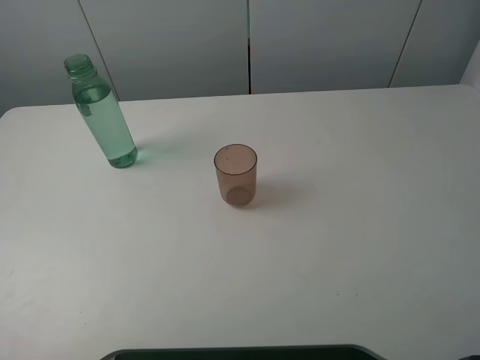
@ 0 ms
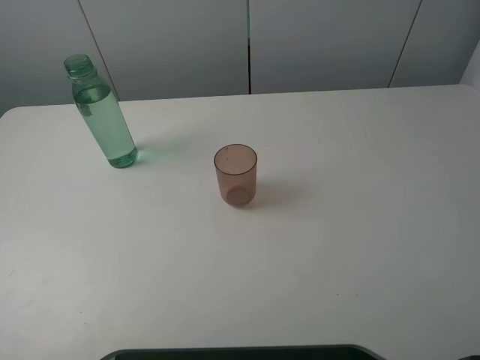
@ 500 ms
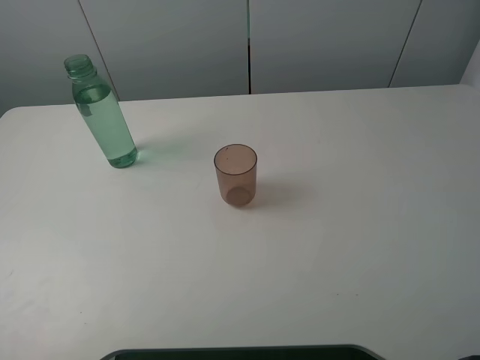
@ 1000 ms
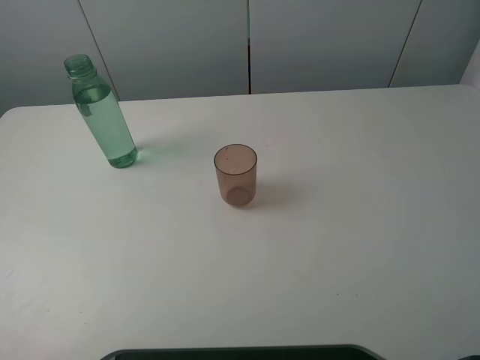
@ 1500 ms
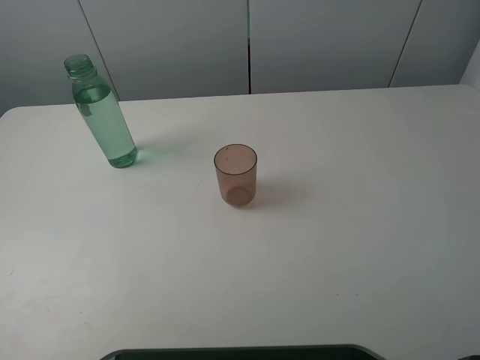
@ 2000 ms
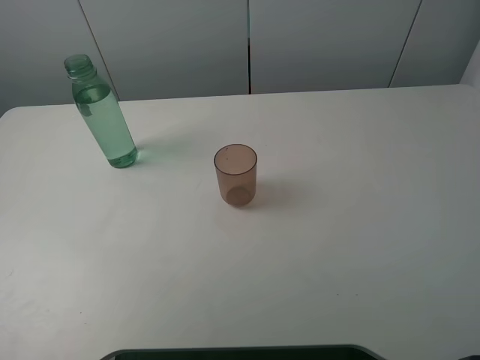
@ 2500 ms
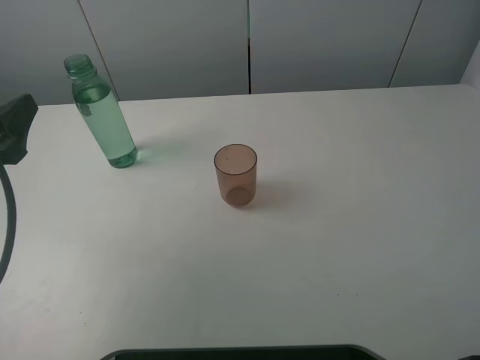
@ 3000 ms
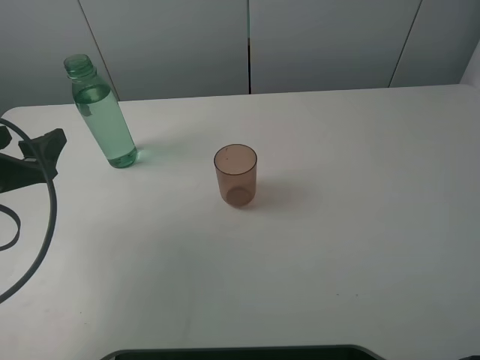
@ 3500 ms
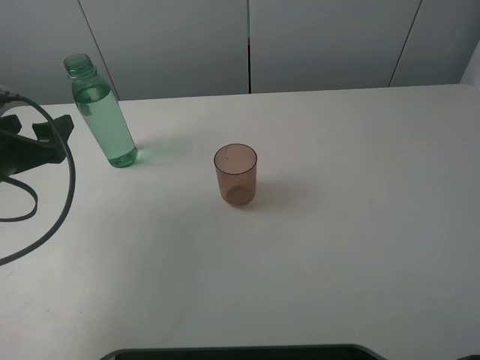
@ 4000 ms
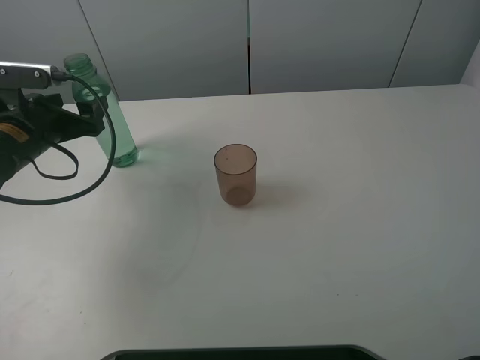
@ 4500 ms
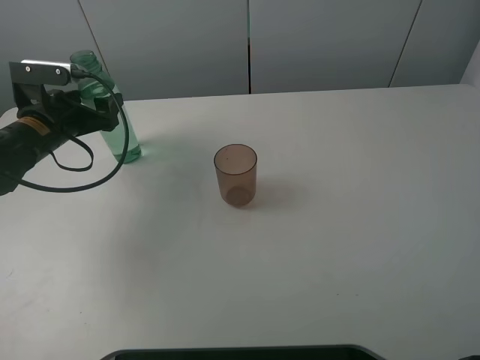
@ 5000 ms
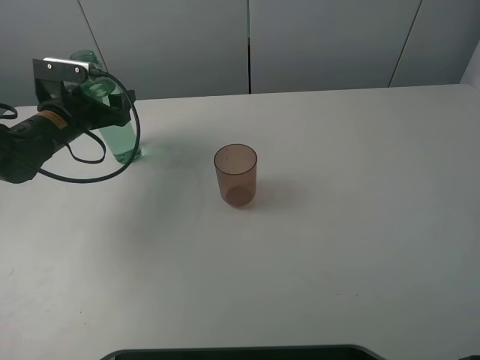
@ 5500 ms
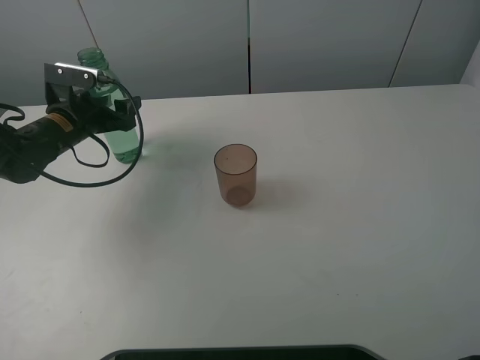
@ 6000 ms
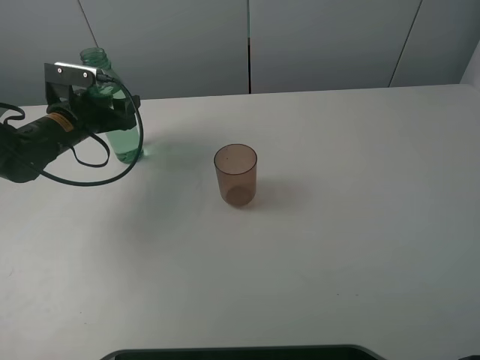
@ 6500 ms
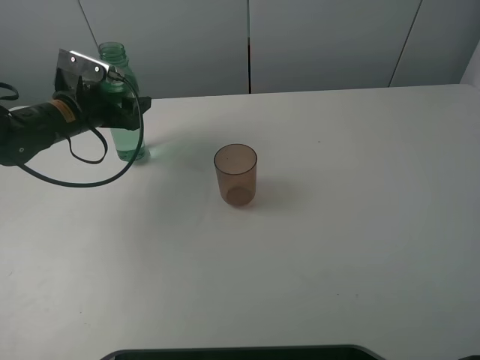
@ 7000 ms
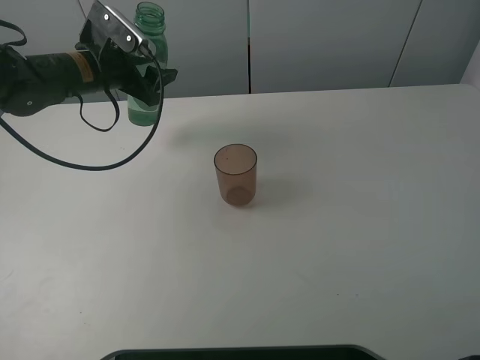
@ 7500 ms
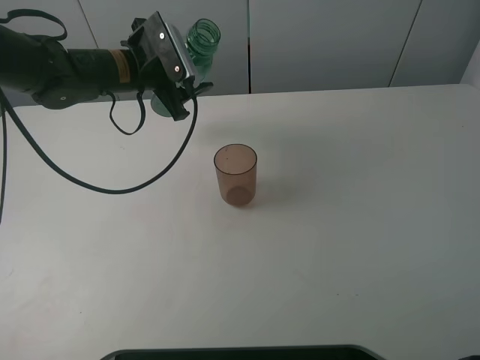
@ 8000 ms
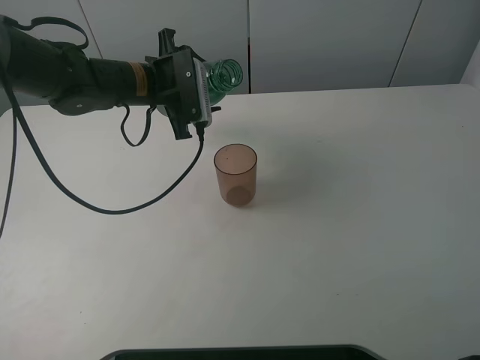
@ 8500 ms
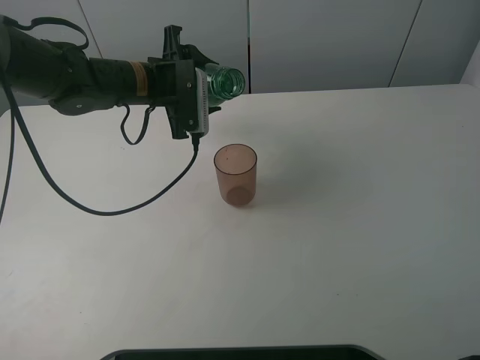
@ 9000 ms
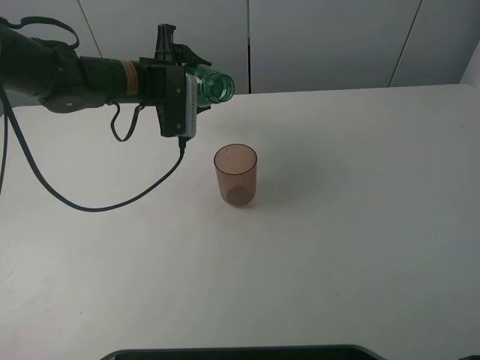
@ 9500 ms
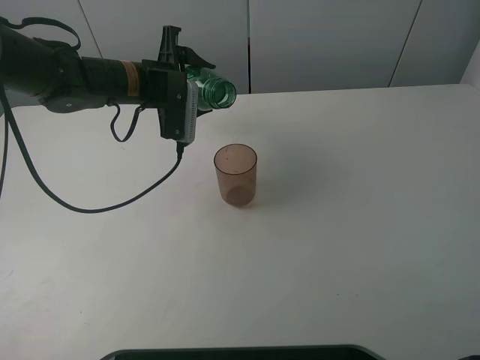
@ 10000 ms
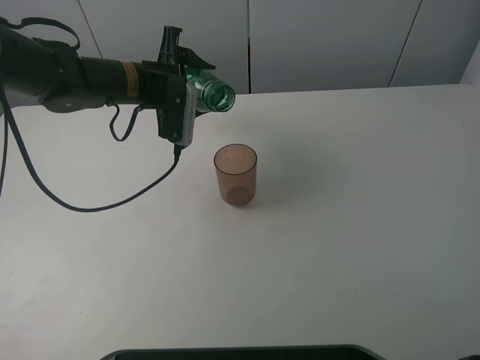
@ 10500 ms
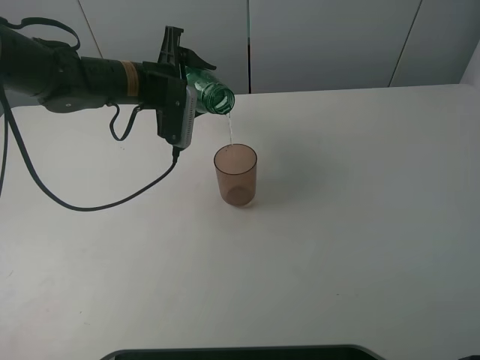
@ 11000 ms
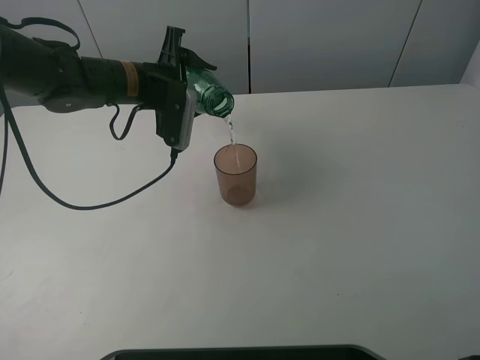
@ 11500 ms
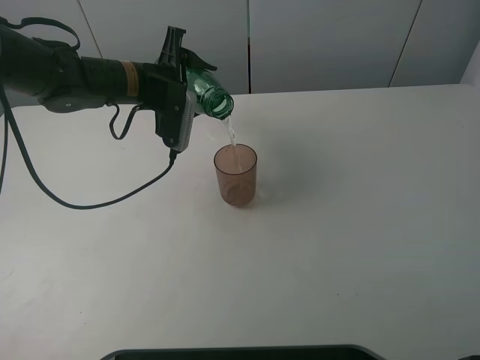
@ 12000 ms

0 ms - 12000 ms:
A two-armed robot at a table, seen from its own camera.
Task of the whole recording: pick up the bottle filled with water and pour it into the pink cup.
Step, 0 ms - 6500 ms: Grasp the green bottle with the left gripper.
2000 ms - 4000 ms: The left gripper heads downward and forward, covering approximately 25 cm.
4000 ms - 6000 ms: The left gripper moves forward, about 15 cm, and closes up.
6000 ms - 8000 ms: The left gripper is displaced to the right and upward by approximately 15 cm.
10000 ms - 12000 ms: The grippers make only small movements.

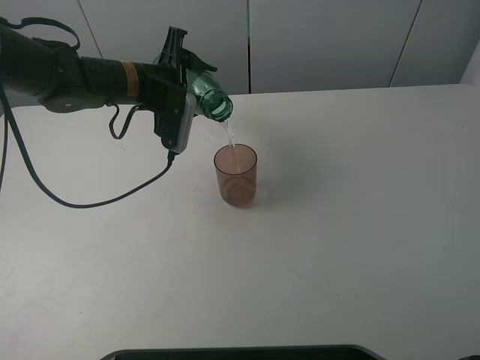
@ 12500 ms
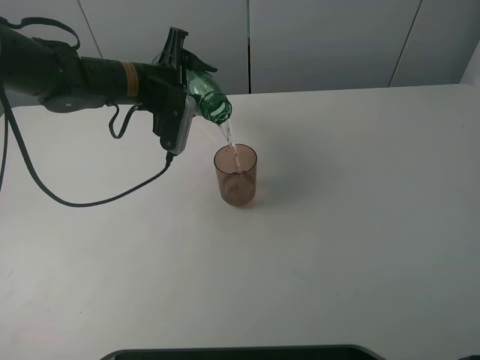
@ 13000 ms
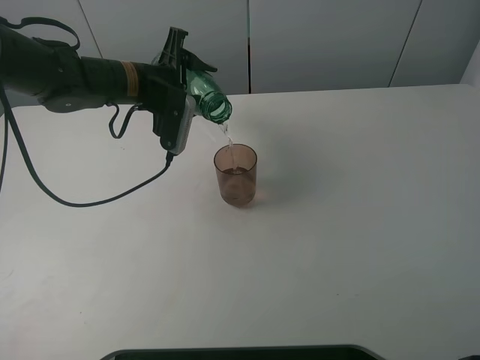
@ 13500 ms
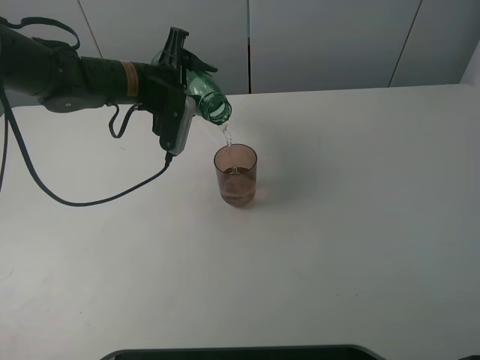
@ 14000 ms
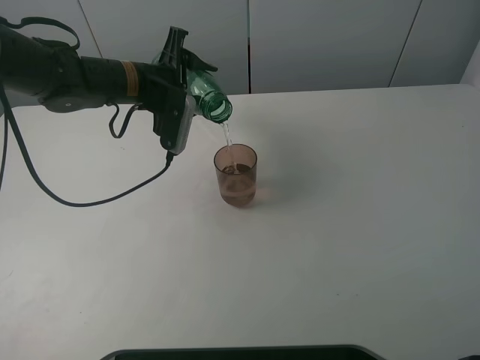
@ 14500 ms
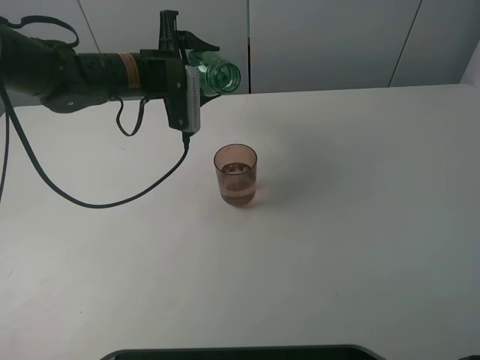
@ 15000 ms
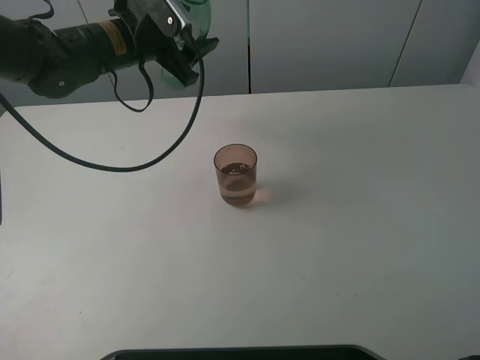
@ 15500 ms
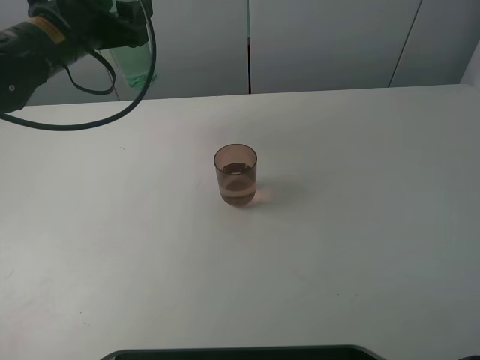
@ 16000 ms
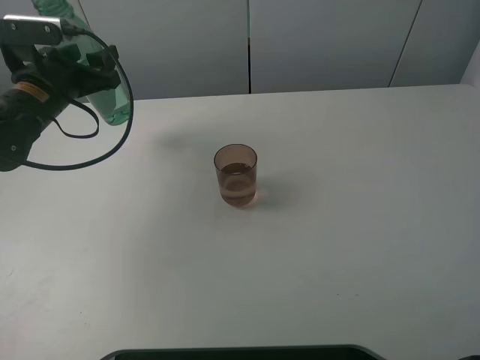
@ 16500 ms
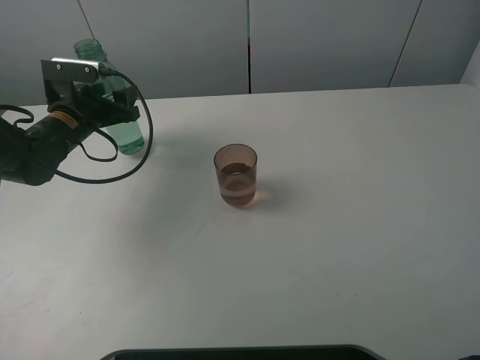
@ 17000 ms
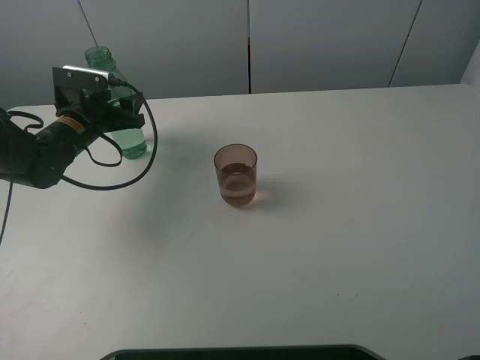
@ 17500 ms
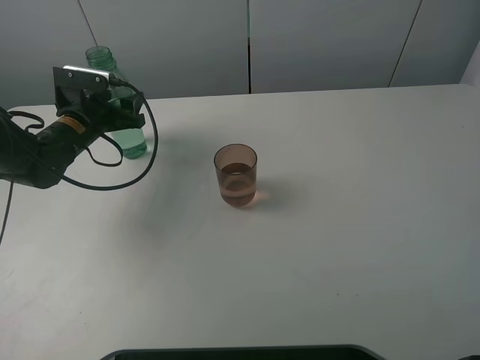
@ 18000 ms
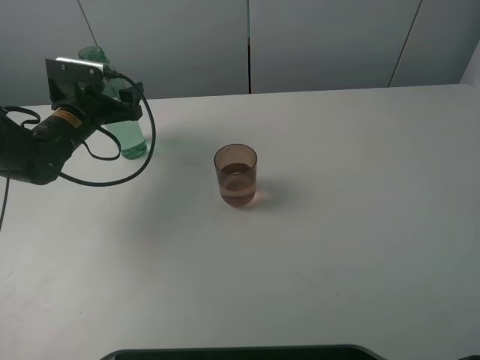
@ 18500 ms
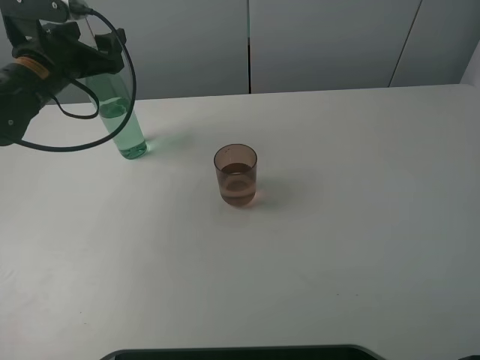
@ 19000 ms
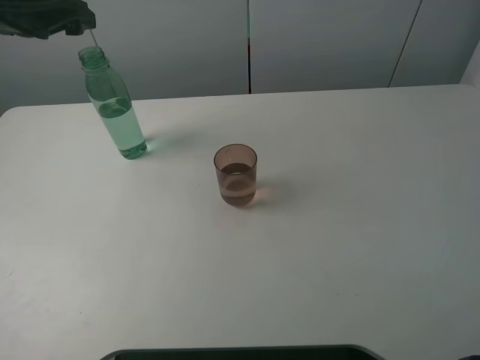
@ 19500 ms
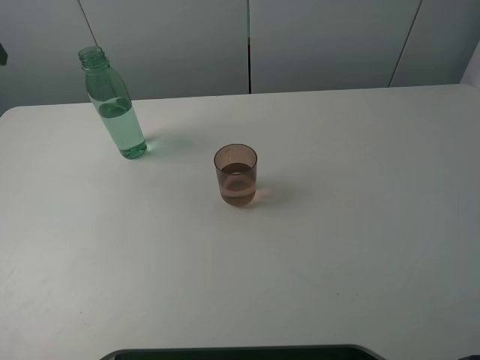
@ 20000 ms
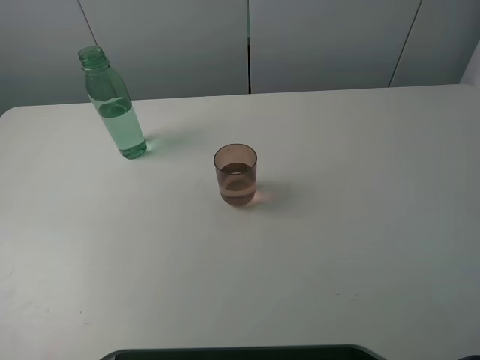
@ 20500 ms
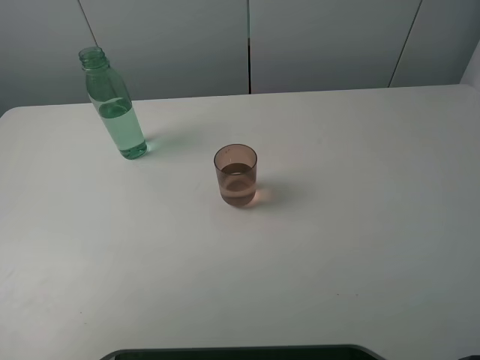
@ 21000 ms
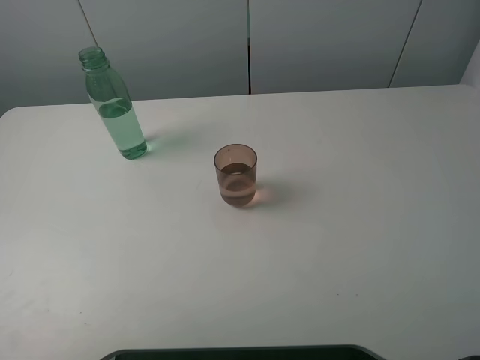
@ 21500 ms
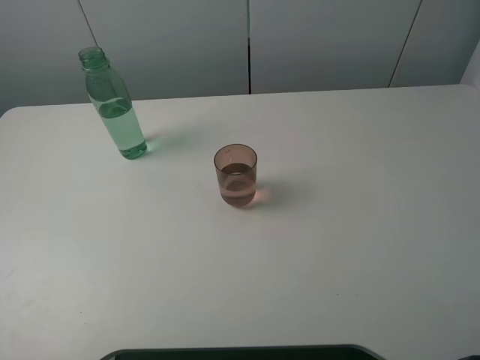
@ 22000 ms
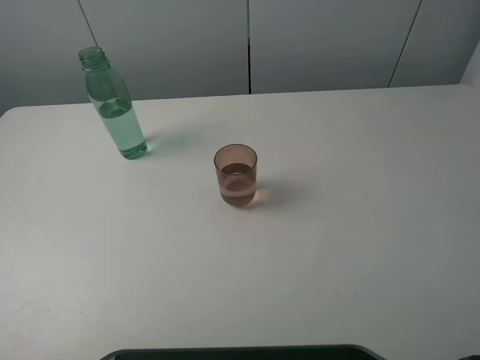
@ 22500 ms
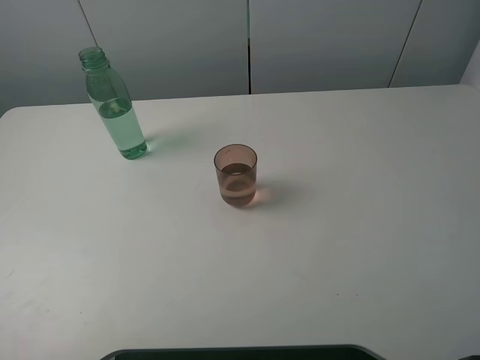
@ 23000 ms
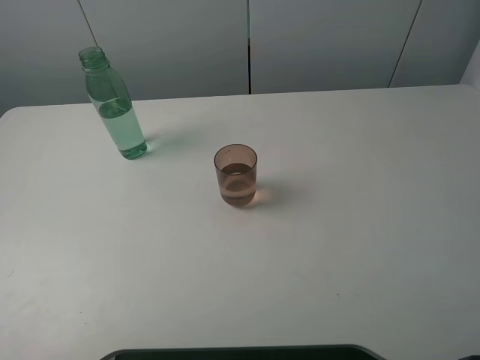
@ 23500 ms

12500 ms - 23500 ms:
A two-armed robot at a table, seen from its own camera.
Task of the whole recording: pick up the bottle filled with water and pour it into the pink cup.
Step, 12500 ms - 15000 ms: Pour water from green bottle to pink cup with the left gripper.
Step, 15500 ms - 19000 ms: Place the green bottle with the left gripper.
12500 ms - 14500 ms: The two grippers keep their place.
14500 ms - 16000 ms: The left gripper shifts some 10 cm to the left and upward.
16000 ms - 18000 ms: The left gripper travels downward by some 15 cm.
18000 ms - 20000 ms: The left gripper is displaced upward and to the left by some 25 cm, and opens up.
